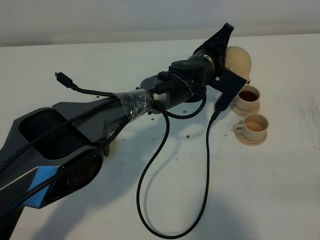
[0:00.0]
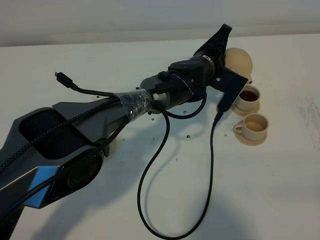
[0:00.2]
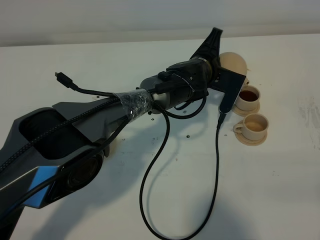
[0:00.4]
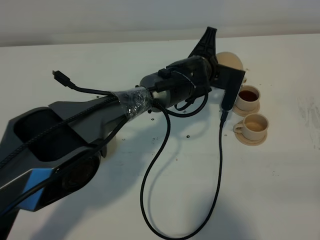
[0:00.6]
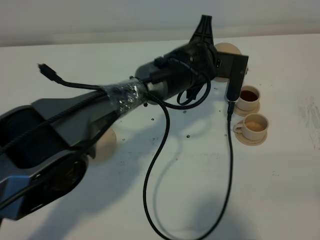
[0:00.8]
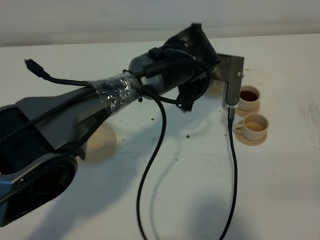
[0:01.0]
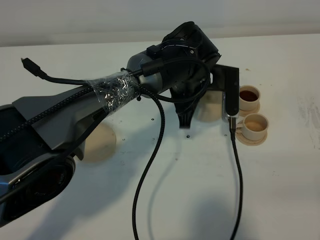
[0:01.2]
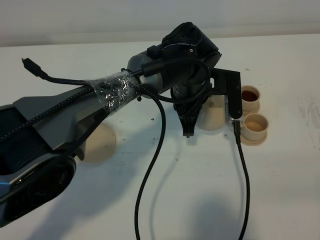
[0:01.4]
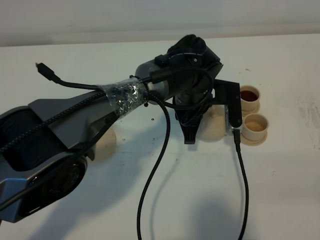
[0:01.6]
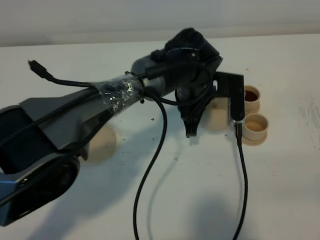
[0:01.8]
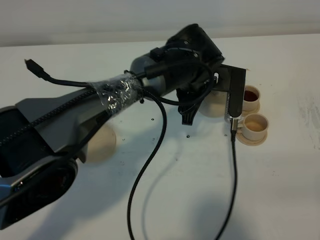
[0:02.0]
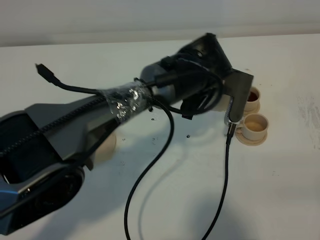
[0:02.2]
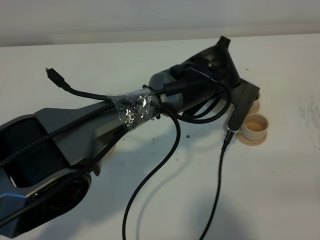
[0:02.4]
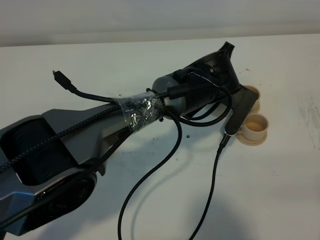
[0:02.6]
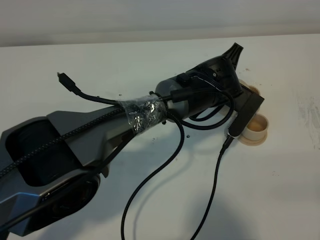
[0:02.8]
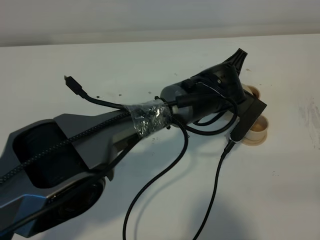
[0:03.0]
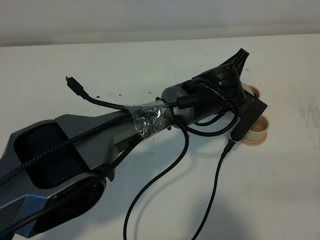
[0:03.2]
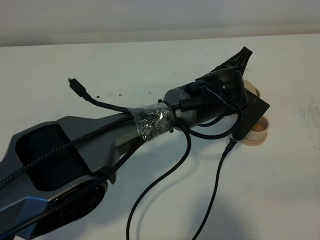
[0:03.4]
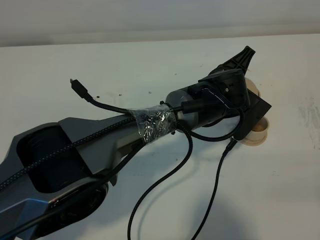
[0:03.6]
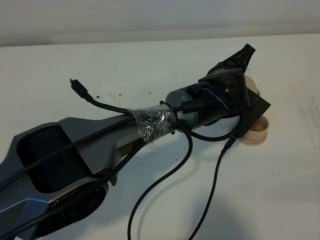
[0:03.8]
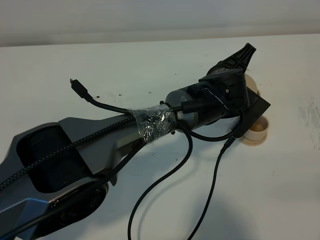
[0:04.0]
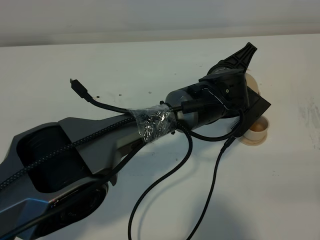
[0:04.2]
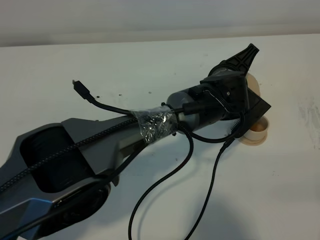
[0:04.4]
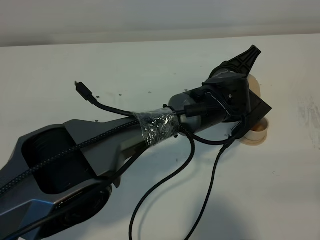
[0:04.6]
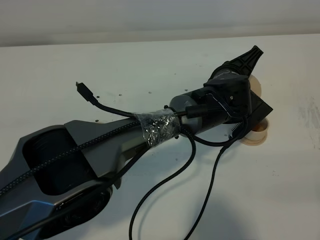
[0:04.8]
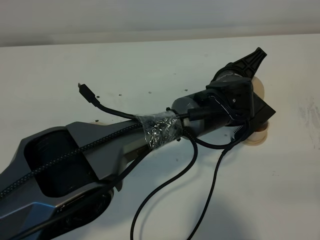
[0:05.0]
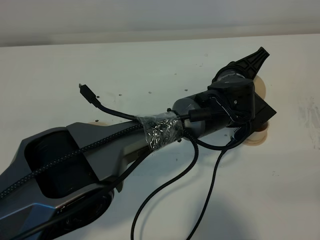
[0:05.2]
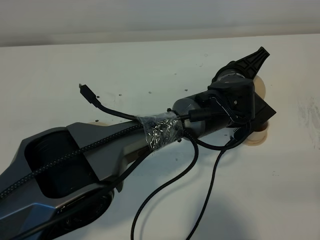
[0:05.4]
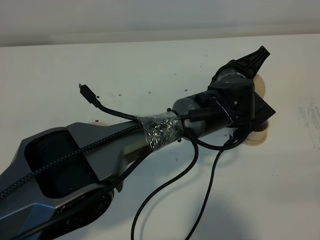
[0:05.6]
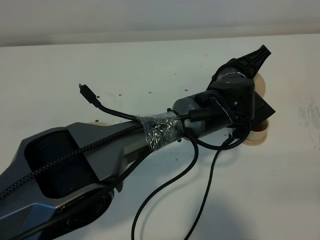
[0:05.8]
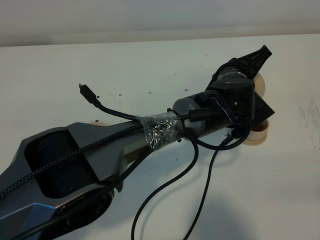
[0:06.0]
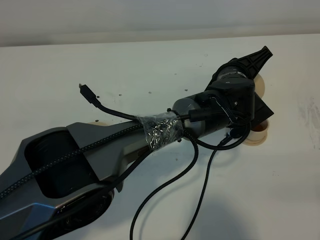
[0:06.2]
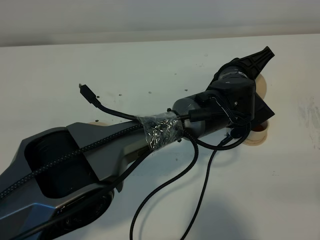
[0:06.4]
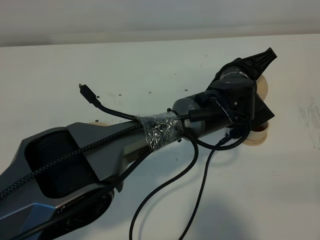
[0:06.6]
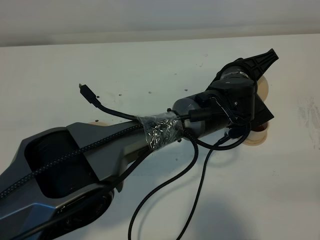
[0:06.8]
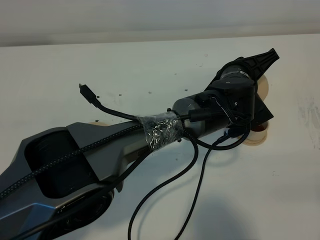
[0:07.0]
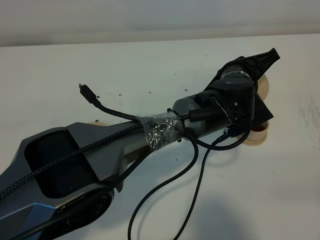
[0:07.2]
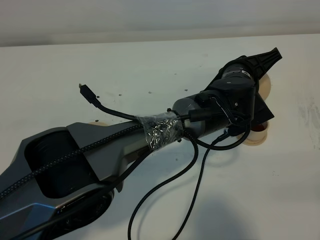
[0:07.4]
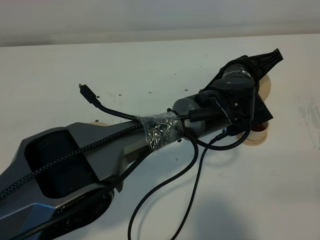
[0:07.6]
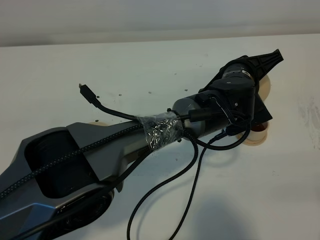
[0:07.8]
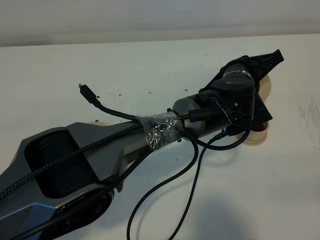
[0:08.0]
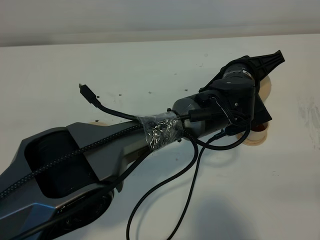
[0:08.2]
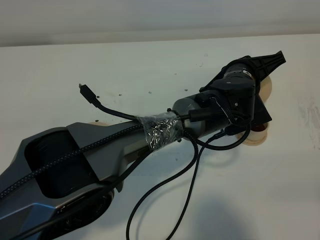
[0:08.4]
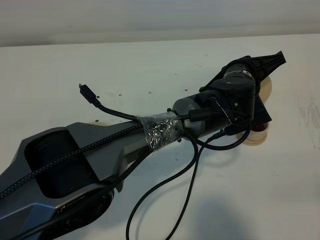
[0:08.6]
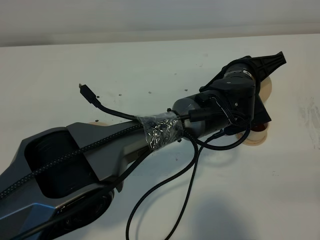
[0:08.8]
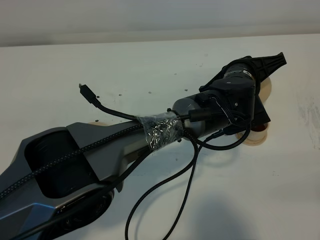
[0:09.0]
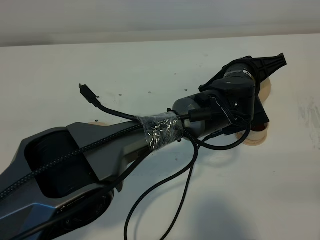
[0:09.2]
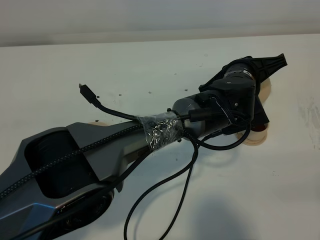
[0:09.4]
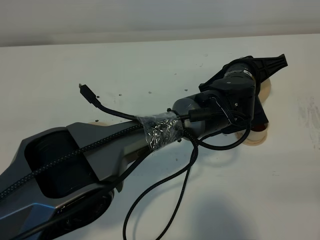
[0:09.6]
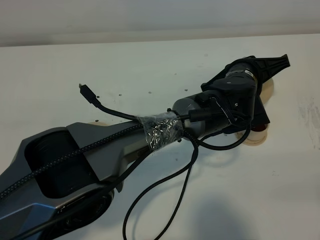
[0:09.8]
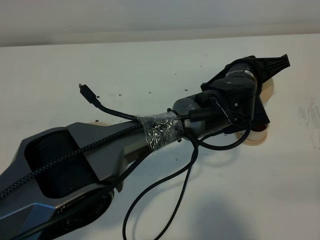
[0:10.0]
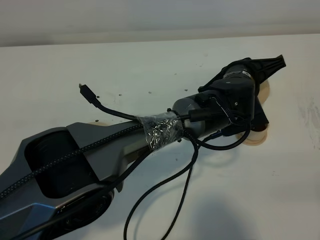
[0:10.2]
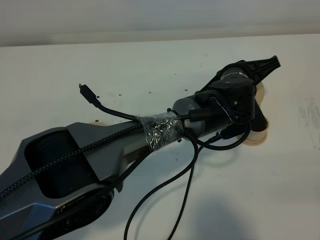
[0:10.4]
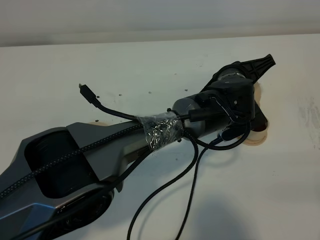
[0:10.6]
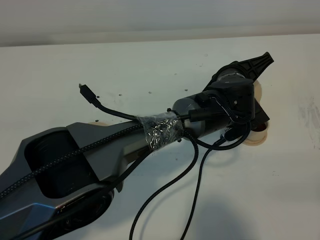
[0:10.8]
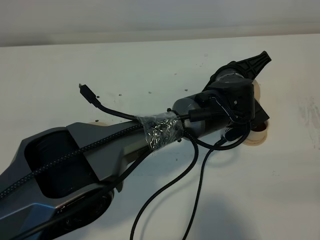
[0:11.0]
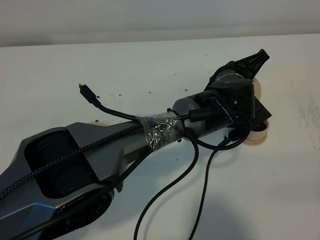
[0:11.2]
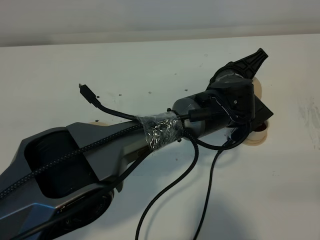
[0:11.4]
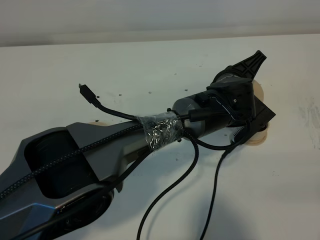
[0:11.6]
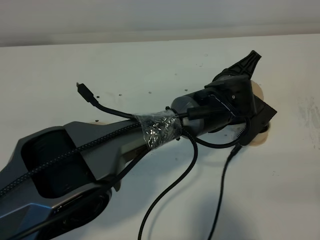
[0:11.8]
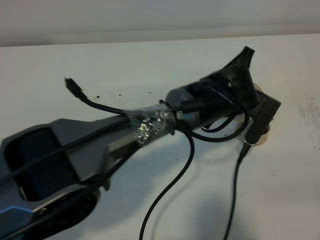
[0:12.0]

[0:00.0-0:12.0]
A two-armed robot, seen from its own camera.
Task of the whole recording: grasp the brown teapot and pour the tea into the two brown teacups one by one, put the brown teapot back in its original place.
Step, 0:00.0 to 0:10.8: Pour tea into the teacup with the left gripper.
0:00.0 to 0:01.6: The left gripper moves backward, some 5 cm.
0:03.0 to 0:06.0: The grippers move only a little.
0:06.0 to 0:09.0: The grippers stay close to where they were, moving slightly.
0:09.0 to 0:10.4: There are only small adjustments of the grippers.

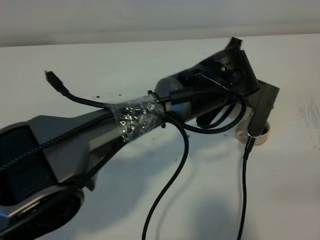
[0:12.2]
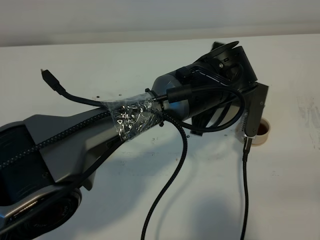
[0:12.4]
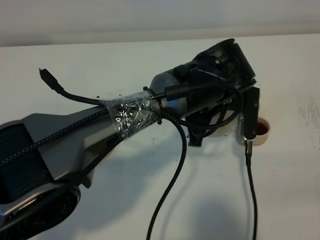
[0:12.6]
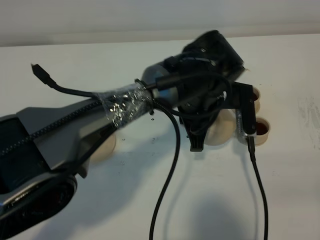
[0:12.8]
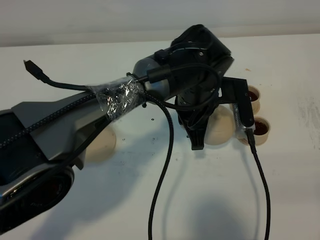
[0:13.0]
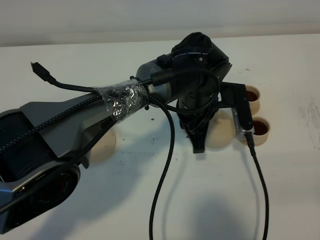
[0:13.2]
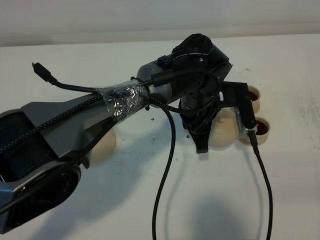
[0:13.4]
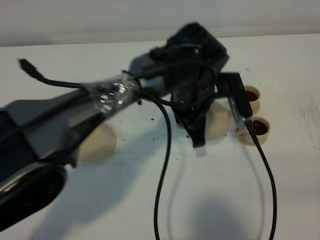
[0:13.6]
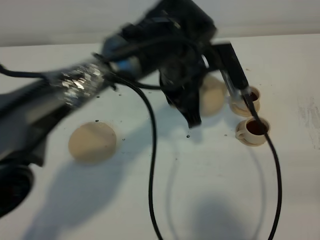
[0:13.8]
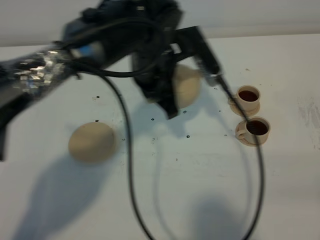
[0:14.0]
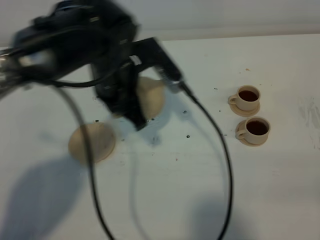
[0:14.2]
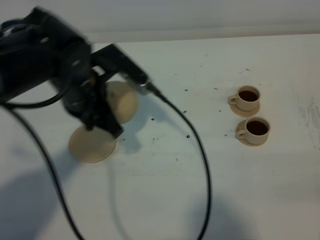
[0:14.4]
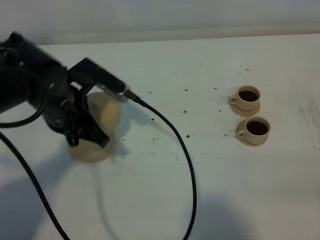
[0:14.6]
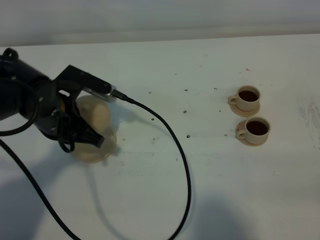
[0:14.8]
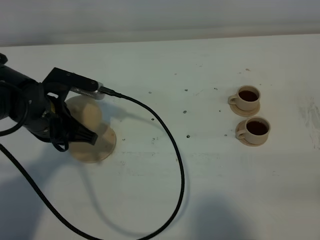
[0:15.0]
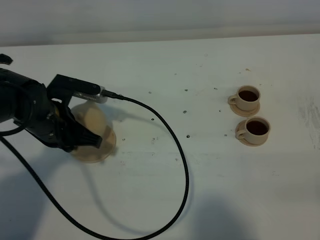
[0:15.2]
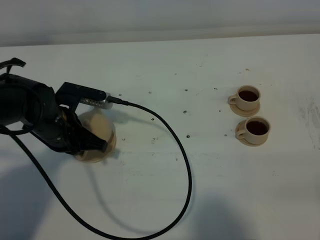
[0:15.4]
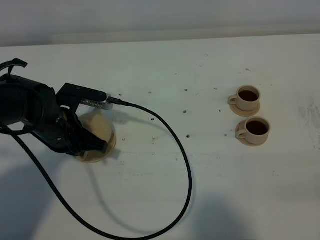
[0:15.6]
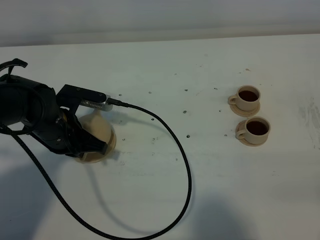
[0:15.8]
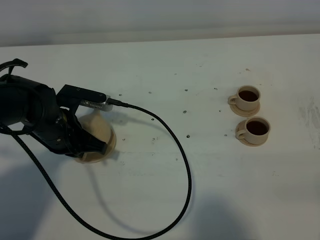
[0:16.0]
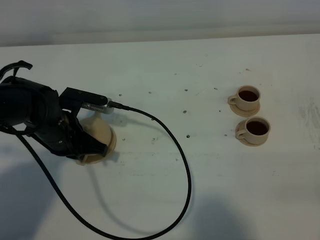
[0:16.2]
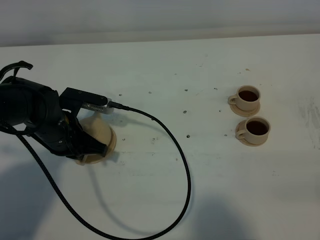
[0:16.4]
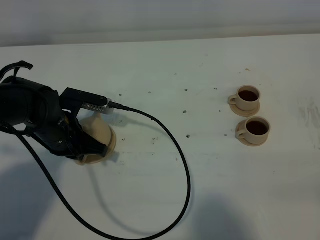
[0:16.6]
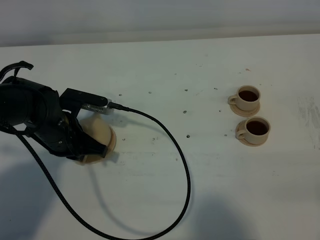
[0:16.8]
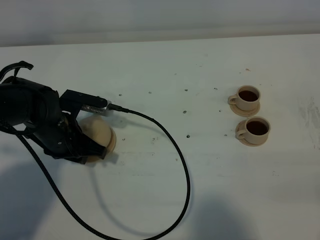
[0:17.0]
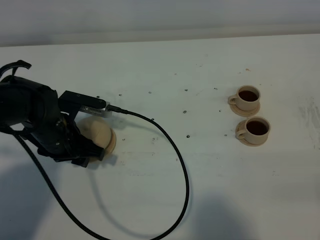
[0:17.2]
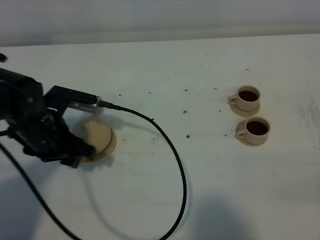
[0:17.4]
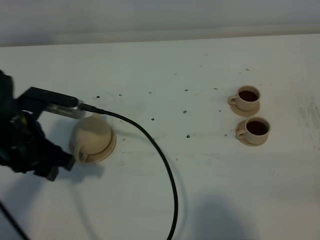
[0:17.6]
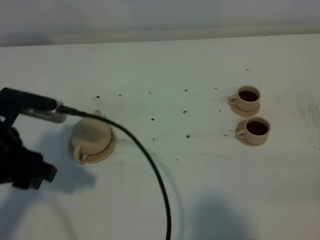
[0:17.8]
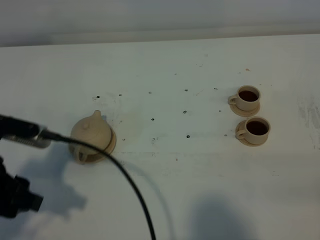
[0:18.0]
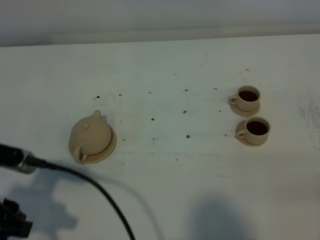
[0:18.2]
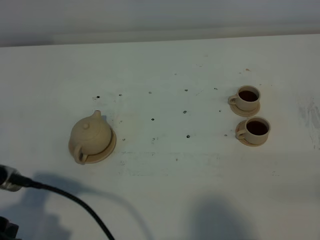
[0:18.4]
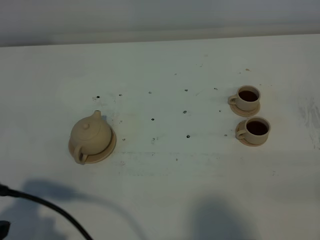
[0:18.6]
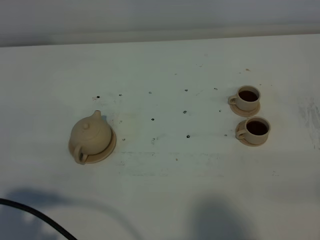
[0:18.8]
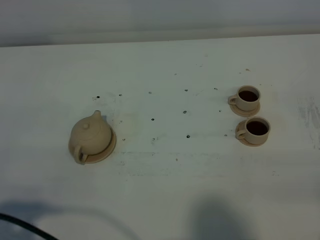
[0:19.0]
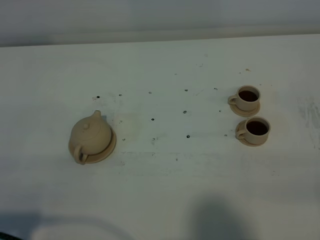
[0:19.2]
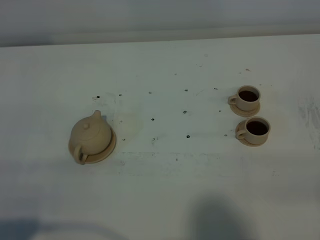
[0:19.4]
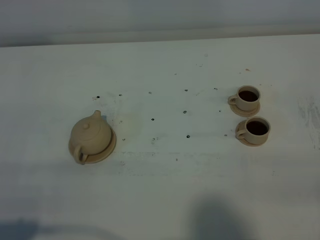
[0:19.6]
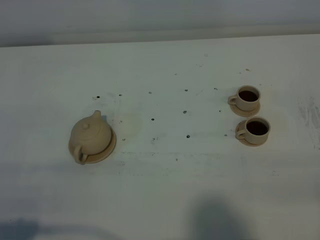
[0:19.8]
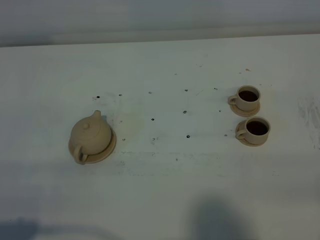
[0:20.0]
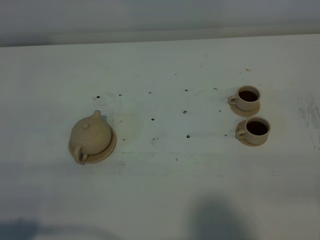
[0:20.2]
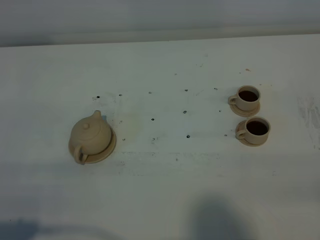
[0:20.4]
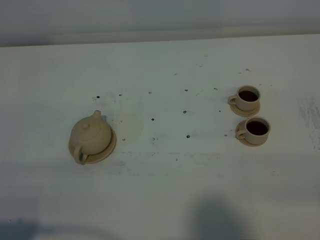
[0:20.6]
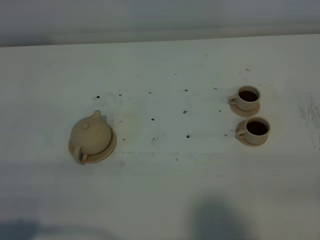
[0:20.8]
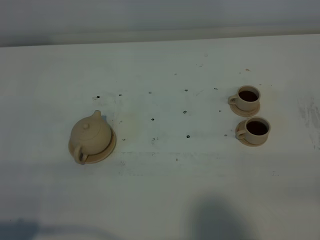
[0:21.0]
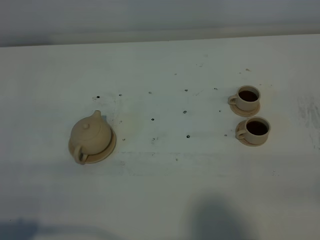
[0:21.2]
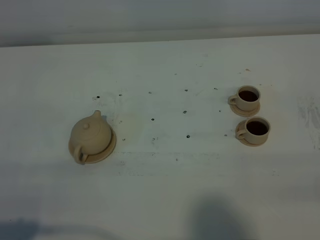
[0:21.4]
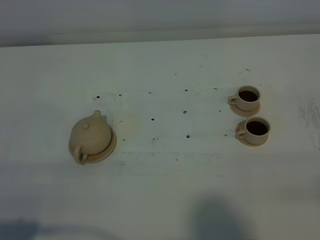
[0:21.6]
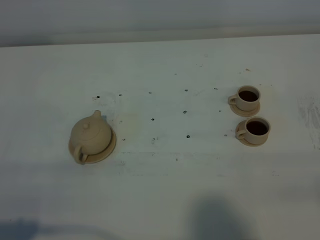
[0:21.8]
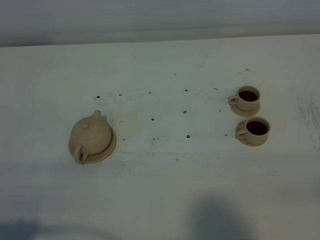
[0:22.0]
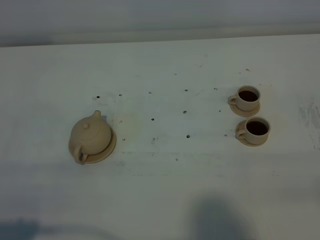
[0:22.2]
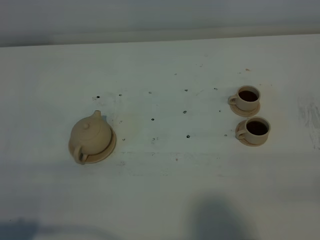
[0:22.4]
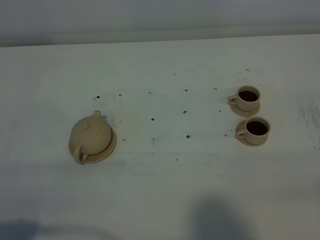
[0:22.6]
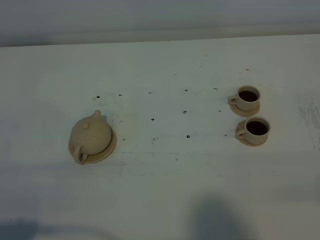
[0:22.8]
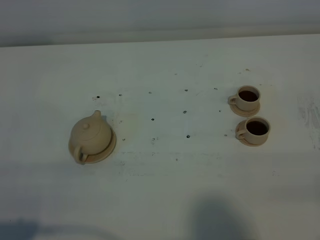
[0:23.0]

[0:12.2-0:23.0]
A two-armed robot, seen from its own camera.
Task of the whole recording: grasp the brown teapot and pour the tea into the two brown teacups one by one, put the brown teapot back in its original place.
0:12.2 to 0:13.8: The left gripper goes some 5 cm to the left.
0:13.8 to 0:15.2: The left gripper is displaced to the left by roughly 20 cm.
0:15.2 to 0:16.8: The grippers stay close to where they were, moving slightly.
0:16.8 to 0:18.4: The left gripper travels backward and upward by approximately 25 cm, and opens its fingers.
0:18.4 to 0:20.0: The left gripper is displaced backward by about 10 cm.
0:20.0 to 0:21.4: The two grippers keep their place.
0:21.4 to 0:23.0: Both grippers stay put.
